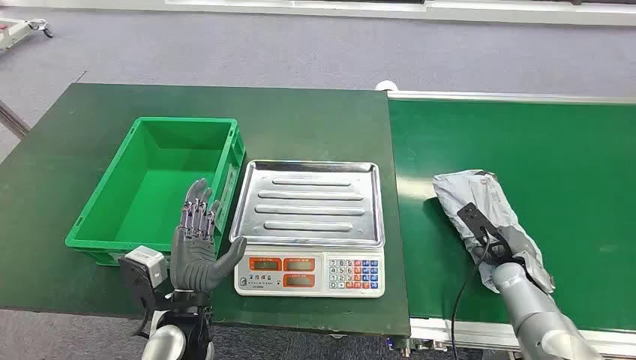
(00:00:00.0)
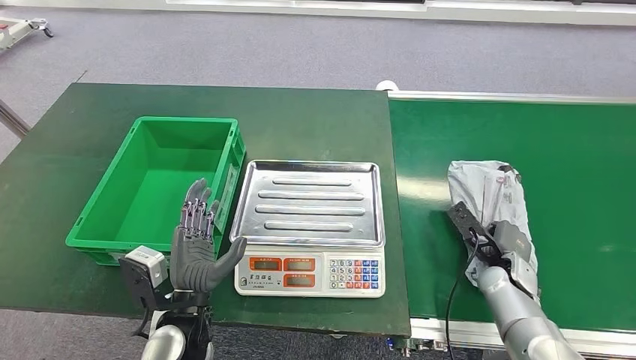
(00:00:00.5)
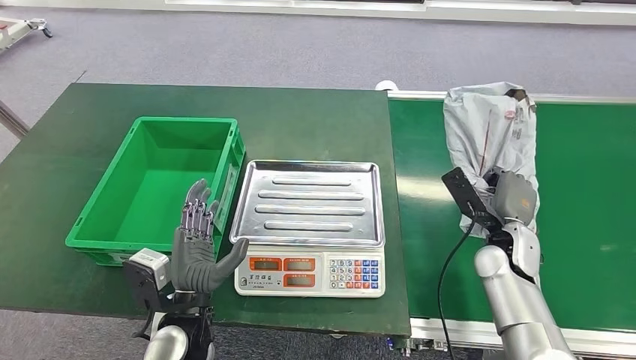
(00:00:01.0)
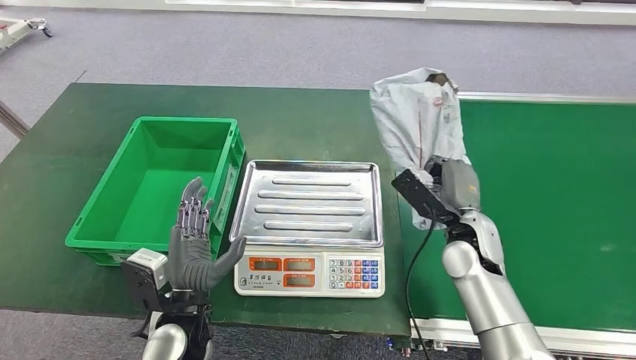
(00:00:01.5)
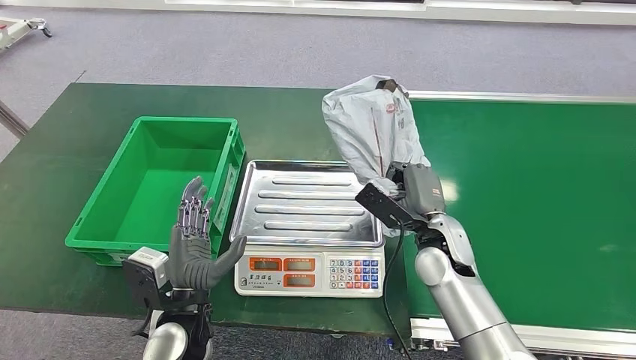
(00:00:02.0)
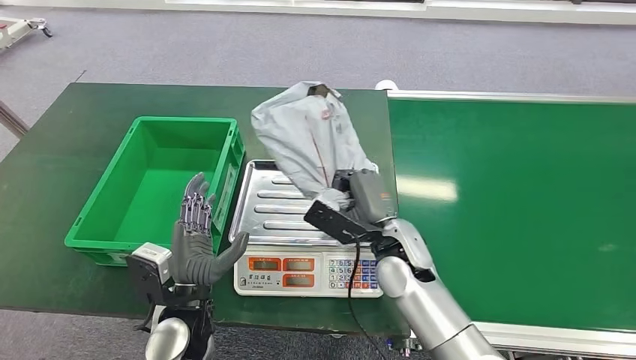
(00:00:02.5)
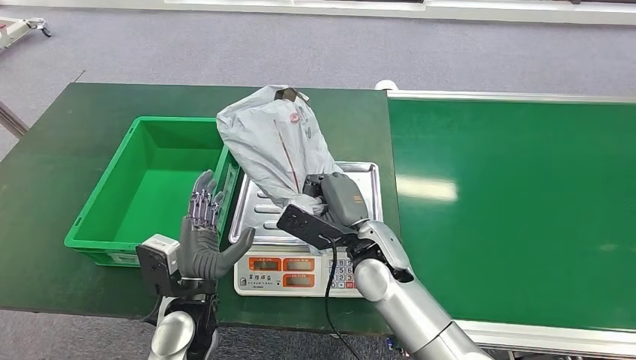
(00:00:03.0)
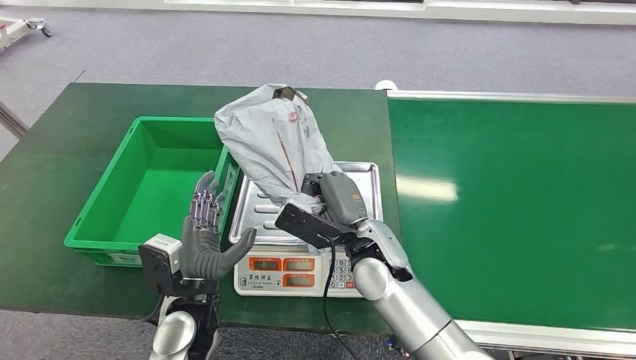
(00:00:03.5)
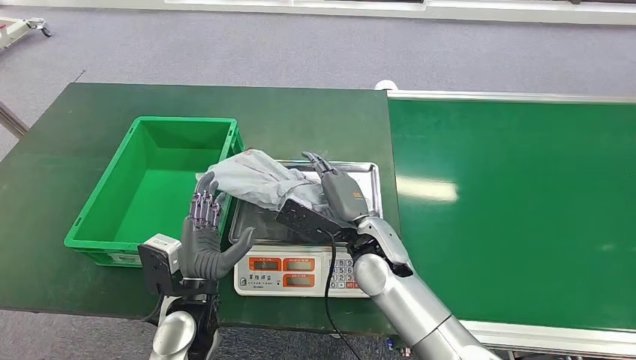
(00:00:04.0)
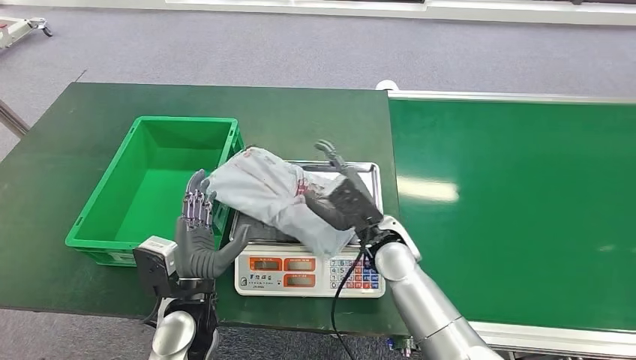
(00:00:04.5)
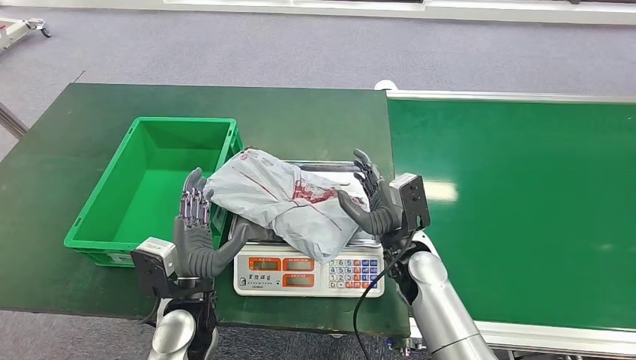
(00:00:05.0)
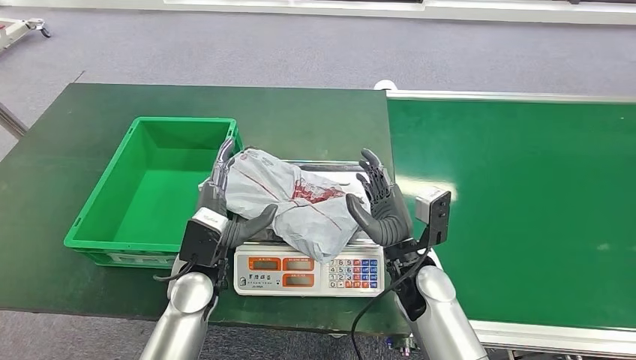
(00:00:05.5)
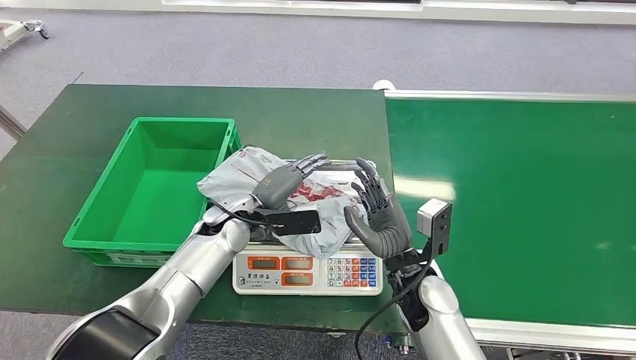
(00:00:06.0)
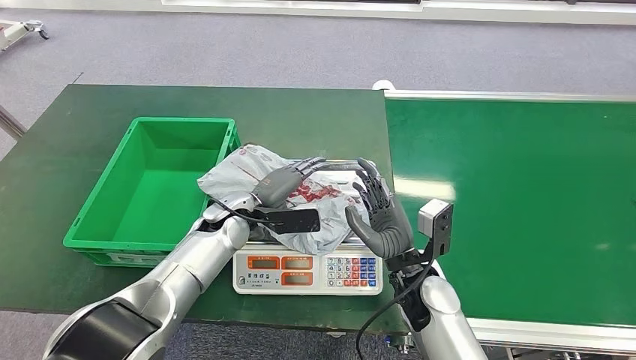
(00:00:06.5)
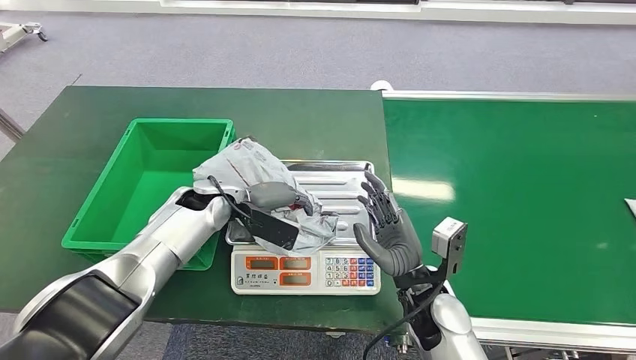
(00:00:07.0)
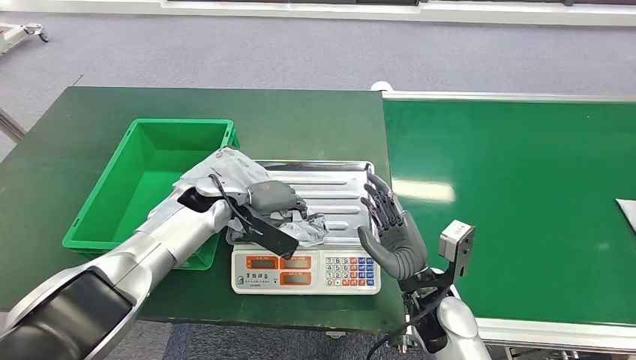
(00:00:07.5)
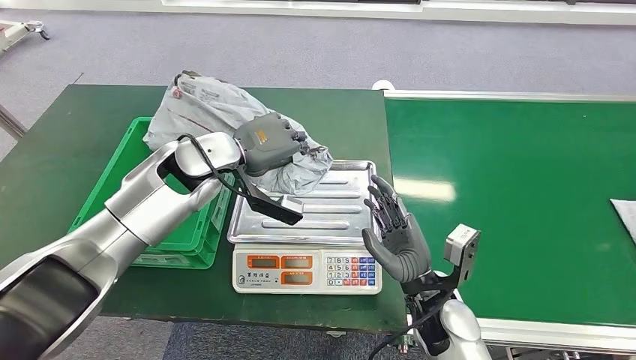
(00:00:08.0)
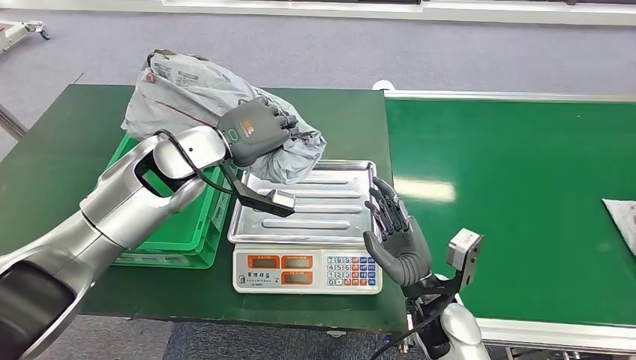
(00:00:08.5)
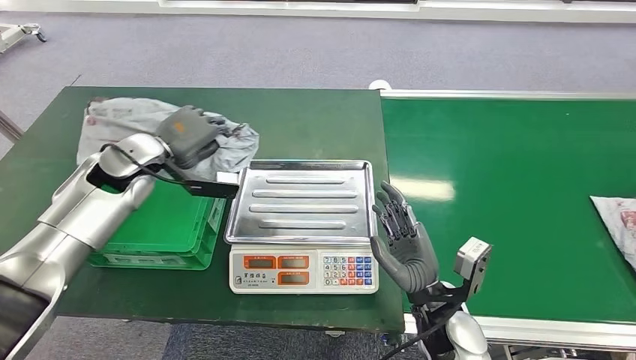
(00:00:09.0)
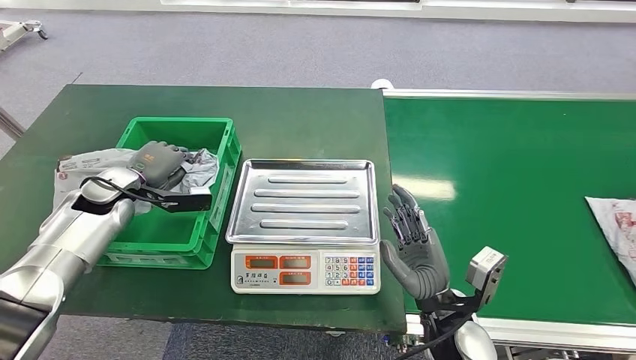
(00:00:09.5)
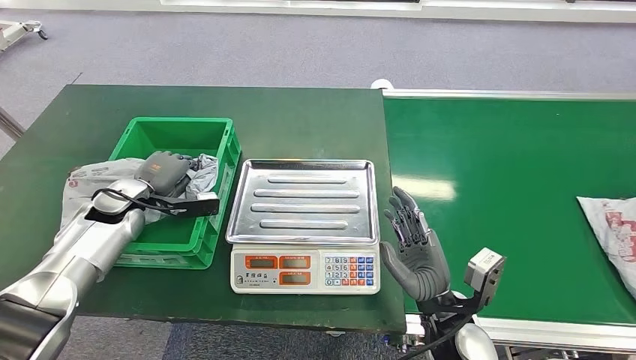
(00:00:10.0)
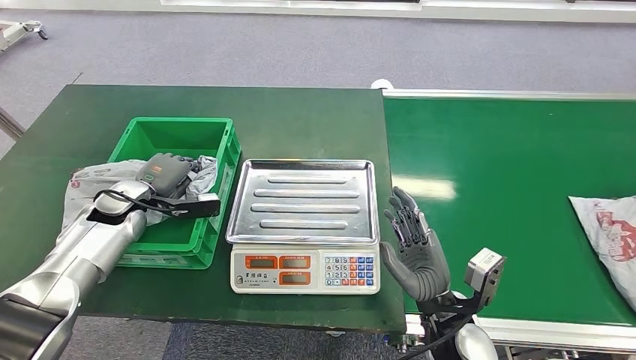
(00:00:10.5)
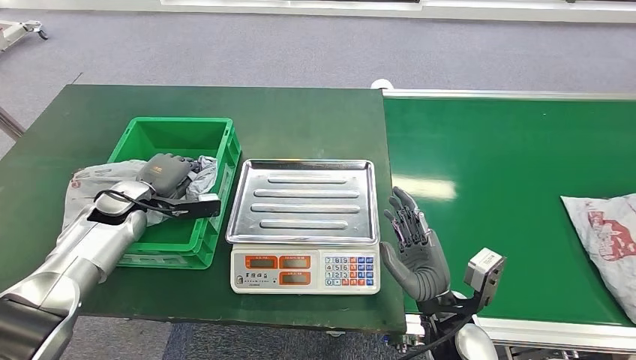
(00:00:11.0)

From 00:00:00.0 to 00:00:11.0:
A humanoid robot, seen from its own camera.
Step, from 00:00:00.0 to 00:00:00.5: Pick up the package from the conveyor belt.
Step, from 00:00:02.5 to 00:00:04.5: Place the package onto the inbound machine.
Step, from 00:00:06.5 to 00:00:08.5: Pick up the package from the inbound machine.
Step, from 00:00:09.5 to 00:00:11.0: Place the package into the parcel locker.
From 00:00:03.5 to 00:00:05.5: The left hand goes some 5 cm forward. The right hand travels to the right by some 5 cm.
